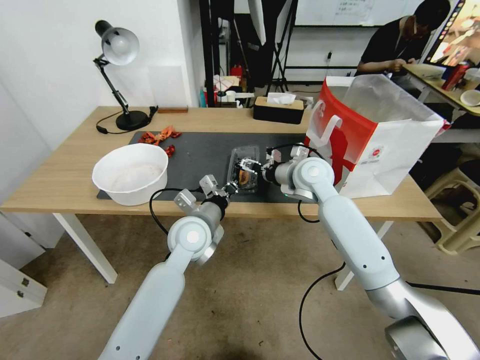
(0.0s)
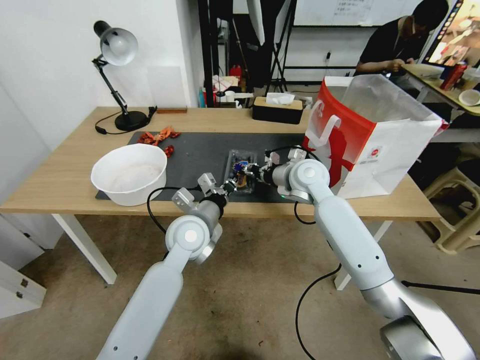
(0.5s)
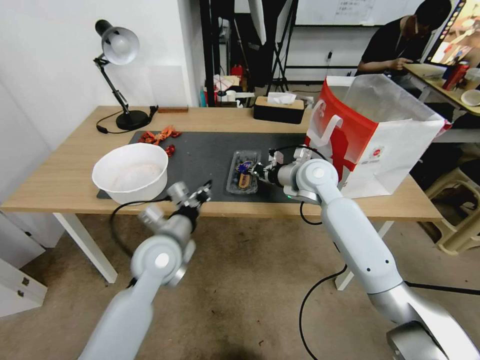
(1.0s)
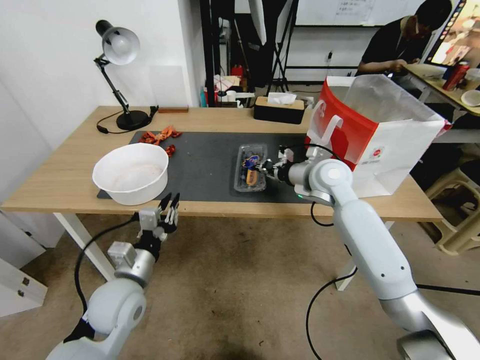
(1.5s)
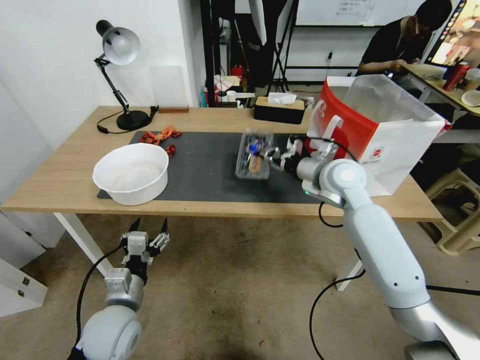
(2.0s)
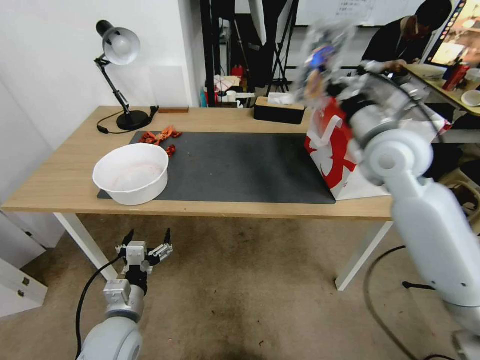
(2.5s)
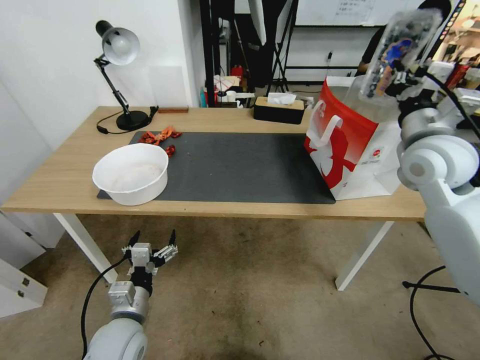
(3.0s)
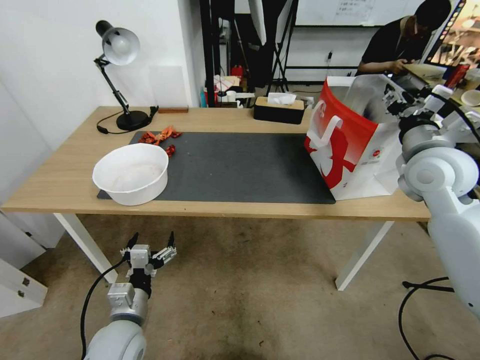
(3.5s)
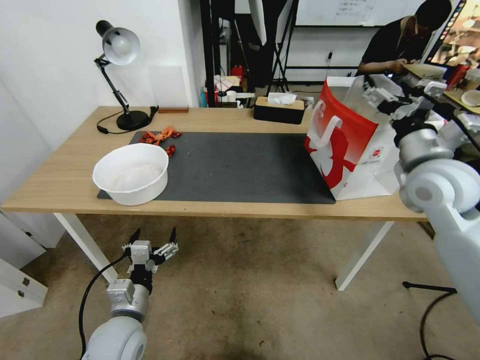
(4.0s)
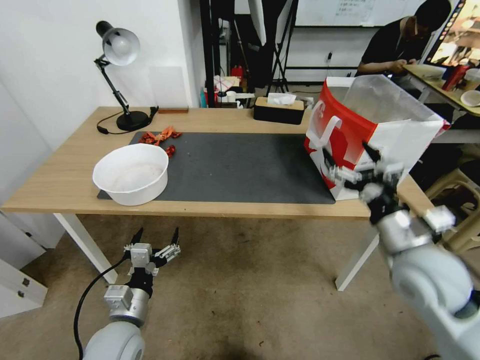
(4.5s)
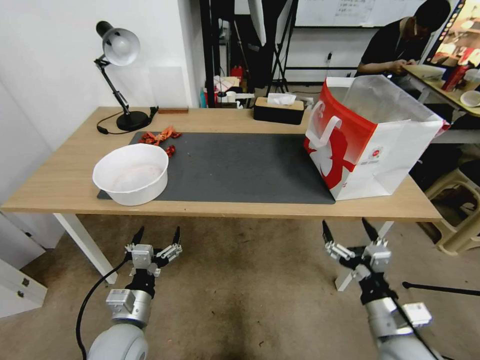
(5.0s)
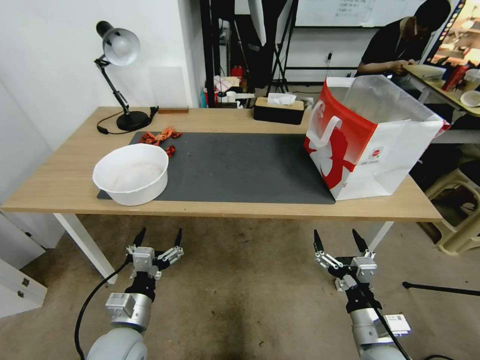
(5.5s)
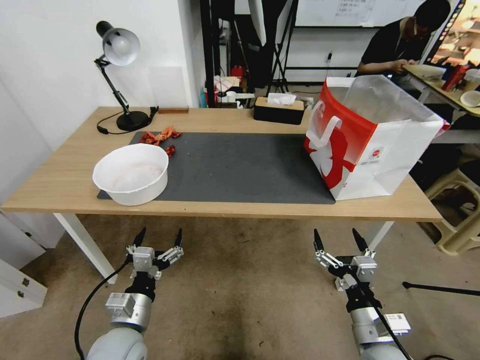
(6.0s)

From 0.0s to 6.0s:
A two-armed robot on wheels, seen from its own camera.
Task of the whole recording: Close the takeout container lid, then place the container into the takeout bag.
From 0.0s to 2.0s: The left gripper travels backward, to the left and downward by about 25 cm, and opens its fingers; the right gripper shifts approximately 5 cm to the right, and closes.
From 2.0s to 4.0s: The right gripper moves to the right, backward and upward, about 15 cm, and opens its fingers.
From 4.0s to 6.0s: The right gripper moves downward and backward, about 35 cm.
